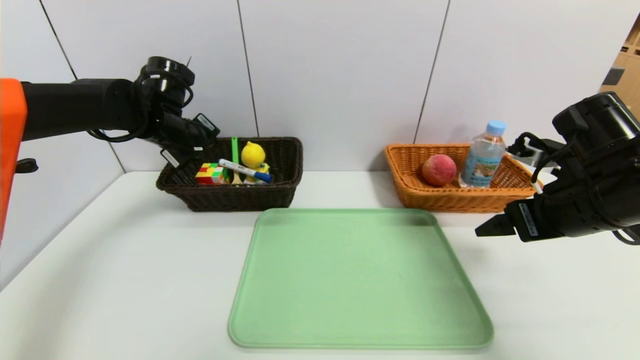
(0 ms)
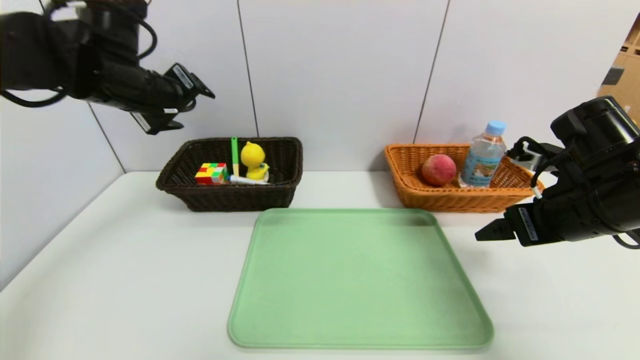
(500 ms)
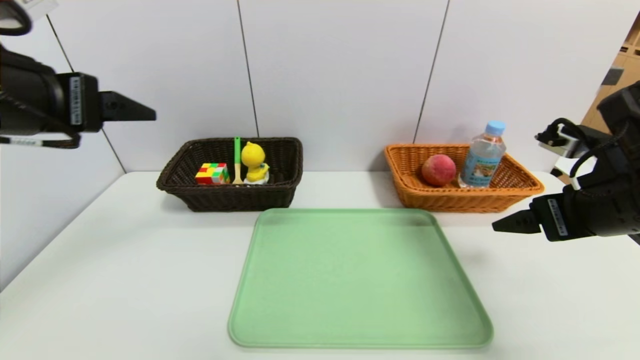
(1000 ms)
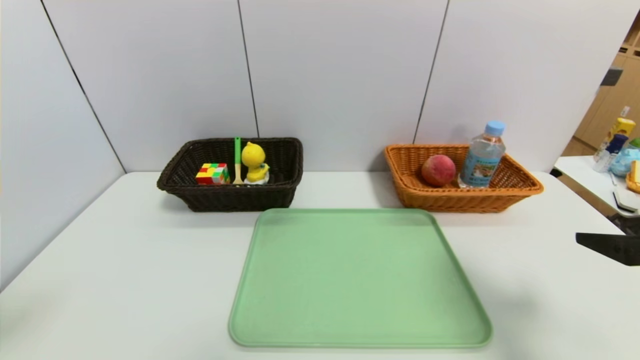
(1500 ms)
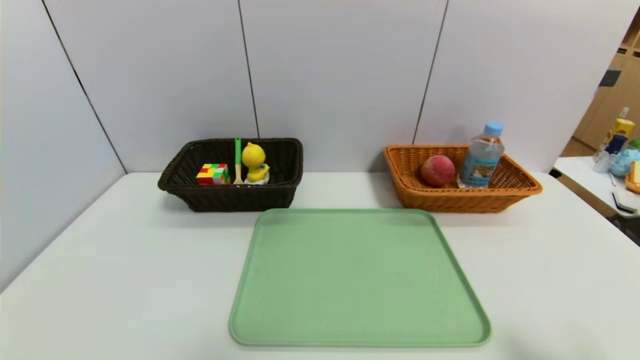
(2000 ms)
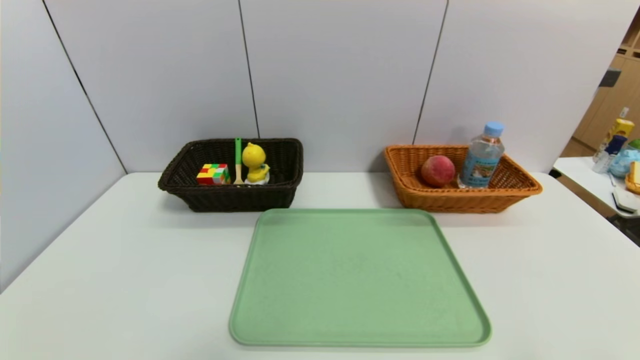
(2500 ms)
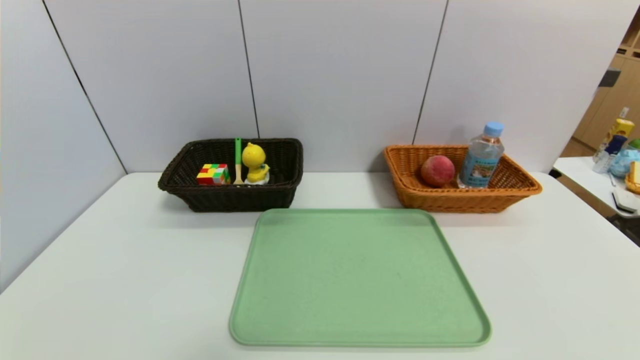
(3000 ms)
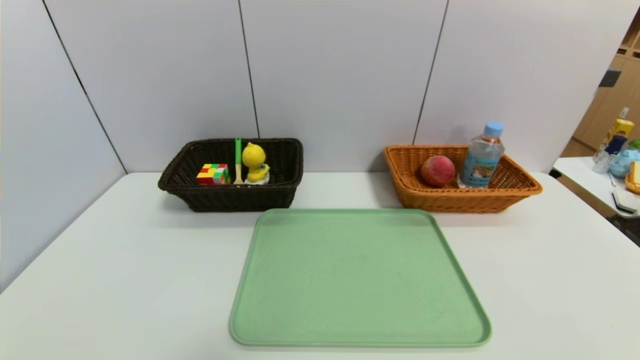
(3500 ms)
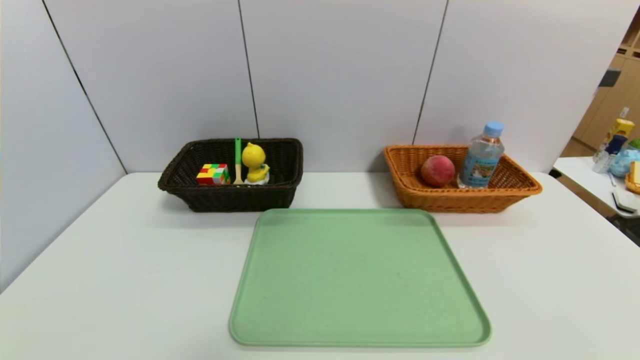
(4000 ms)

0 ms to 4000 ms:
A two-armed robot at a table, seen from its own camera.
Task of the whole recording: place the food in the right basket with the right gripper, and place the non food items in the left basket with the left gripper.
0 ms to 2000 ms: The right gripper goes about 25 cm backward; the left gripper is displaced backward by about 50 cm, and opens up.

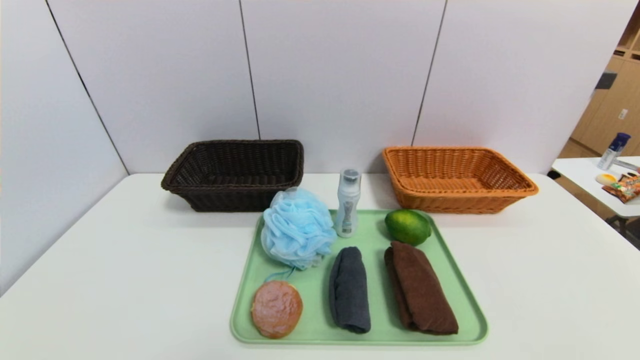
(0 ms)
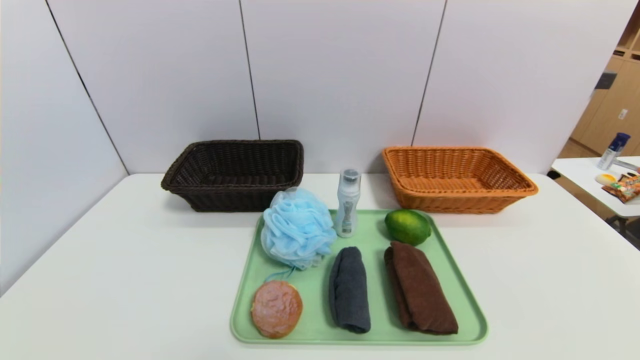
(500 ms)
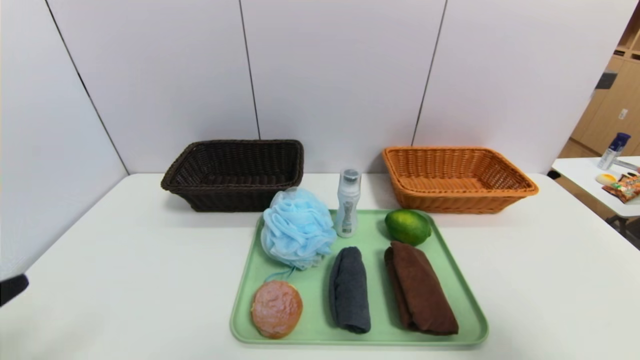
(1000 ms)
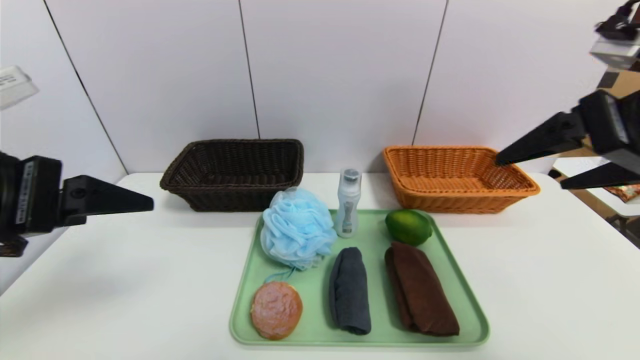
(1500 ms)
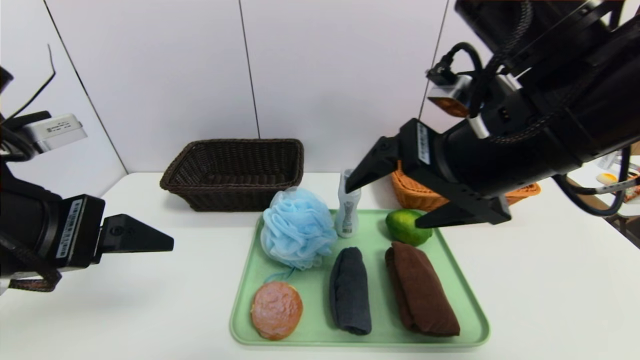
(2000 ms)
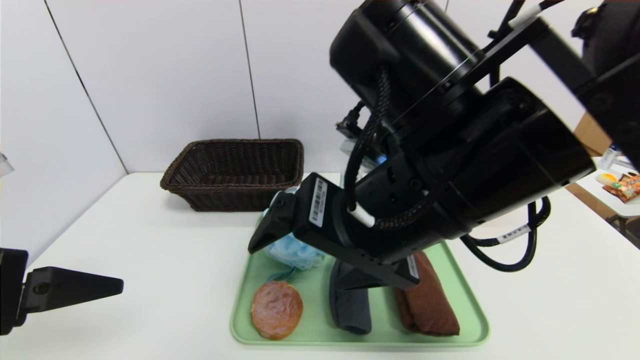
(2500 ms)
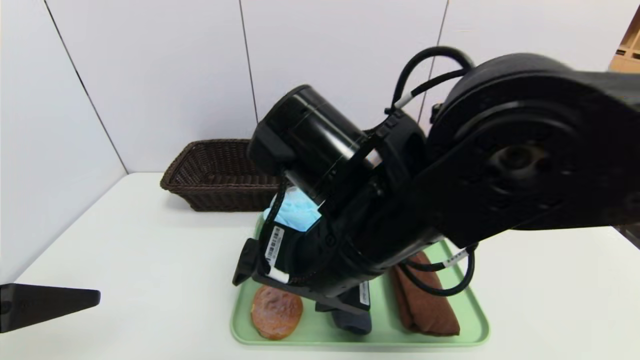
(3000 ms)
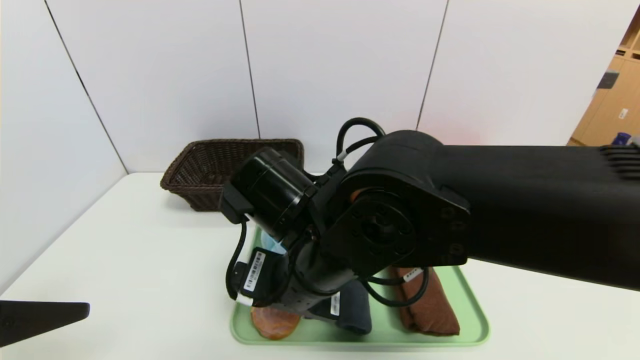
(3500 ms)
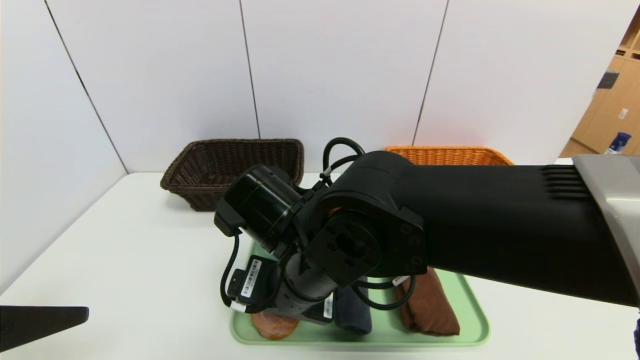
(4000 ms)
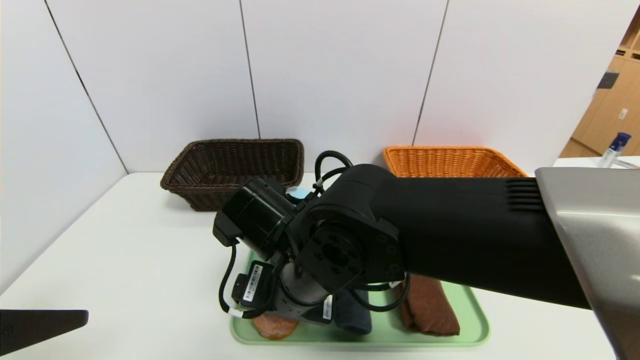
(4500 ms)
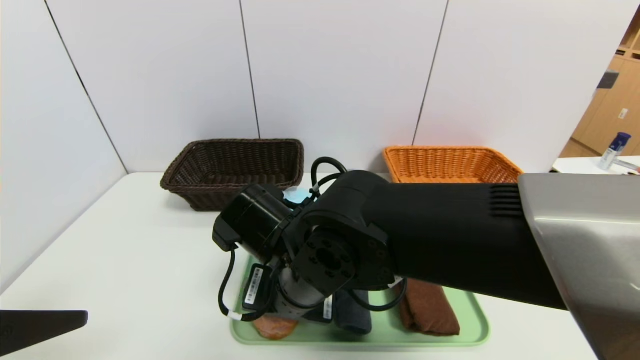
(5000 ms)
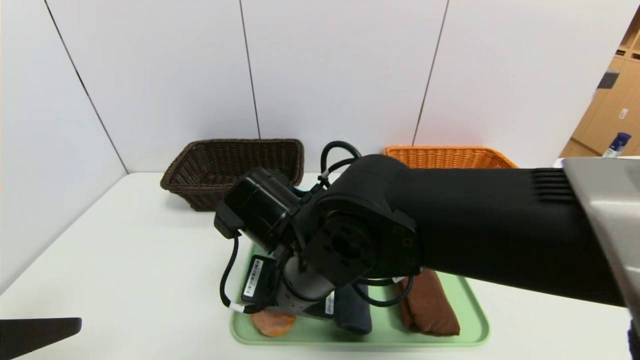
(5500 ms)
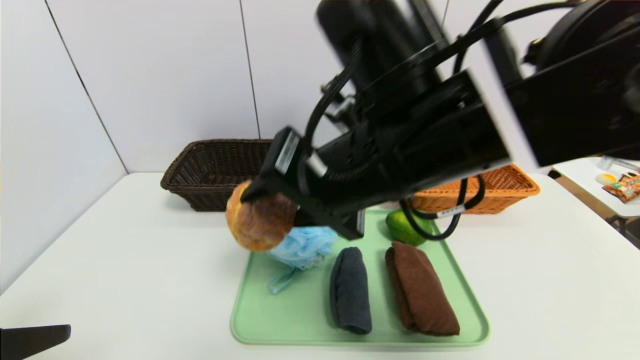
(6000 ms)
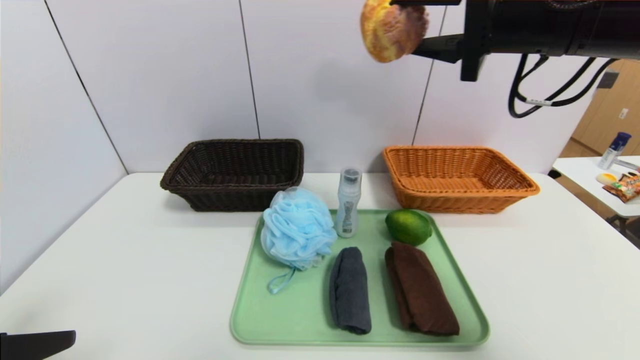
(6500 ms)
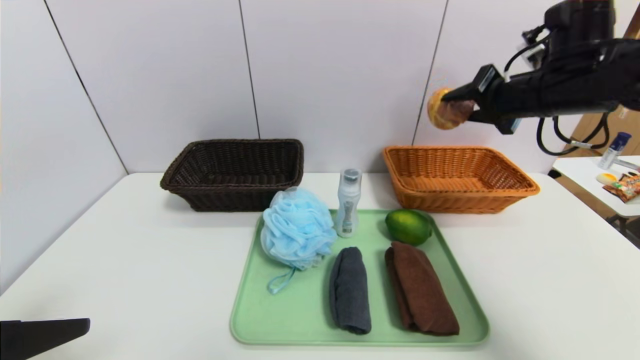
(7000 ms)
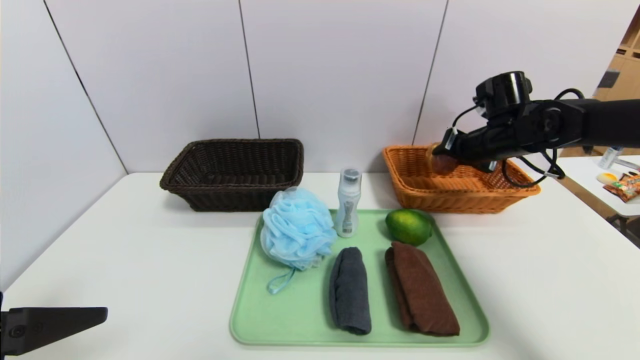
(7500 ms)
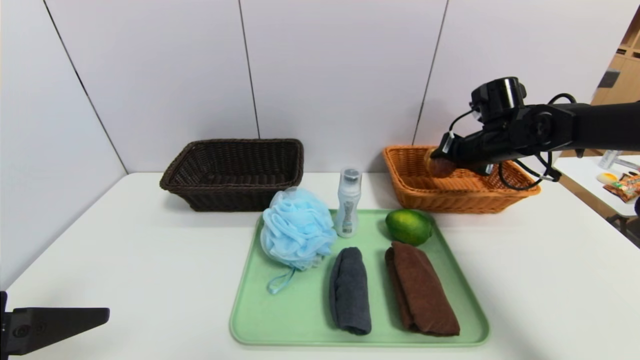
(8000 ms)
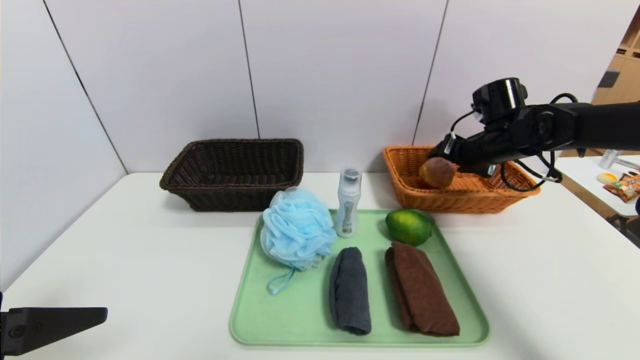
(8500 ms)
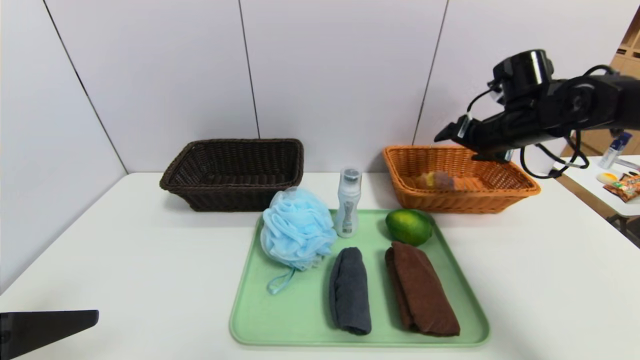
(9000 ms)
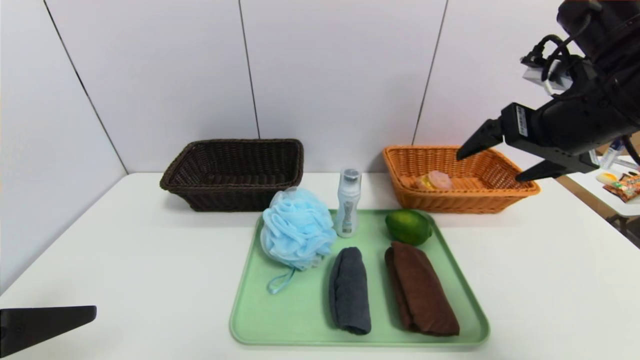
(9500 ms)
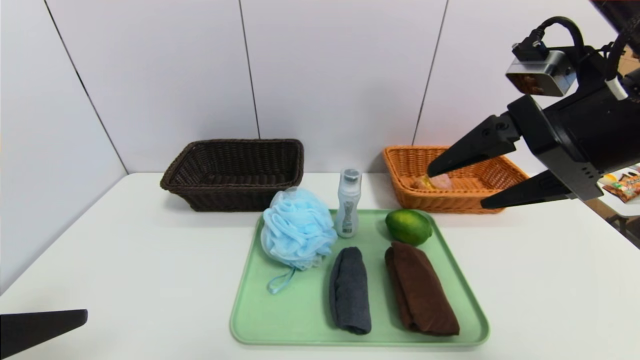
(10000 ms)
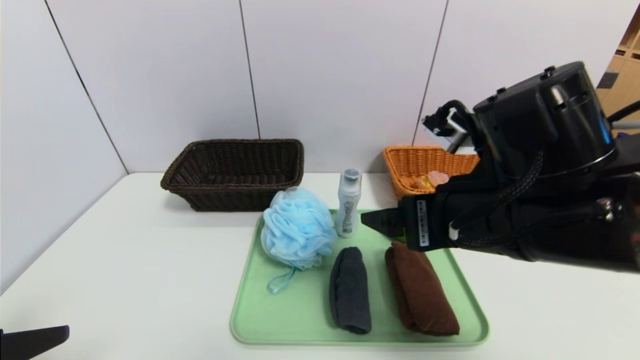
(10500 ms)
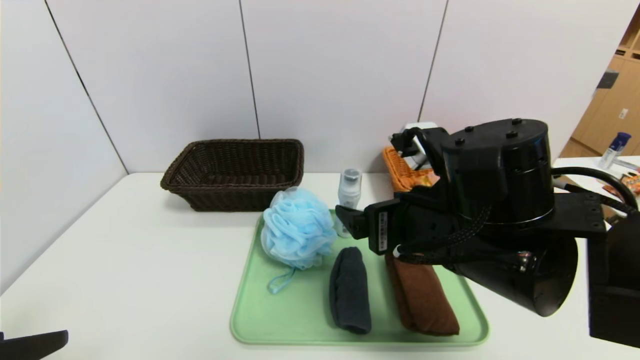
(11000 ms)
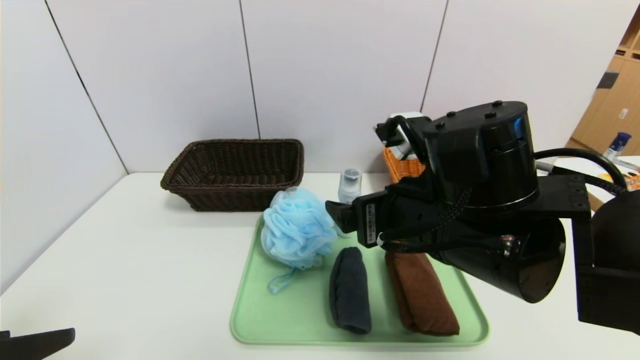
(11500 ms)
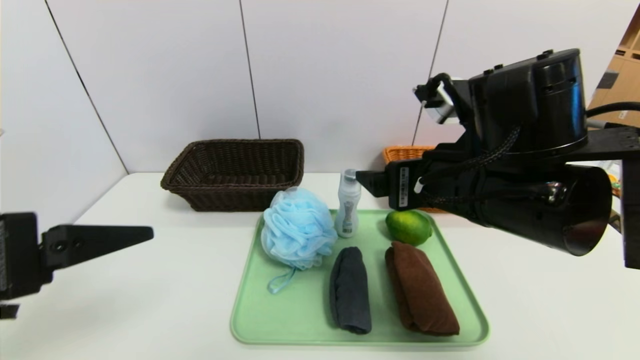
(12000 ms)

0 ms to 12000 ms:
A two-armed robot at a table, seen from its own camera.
Task of the whole recording: place the food in the right basket with the right gripper, and place the non food items in the left basket with the left gripper.
Step, 0 ms to 8500 ms: Grasp the egg yolk pastry and put it in the right basket.
0 ms to 2000 ms: The right gripper heads upward, forward and to the left, covering approximately 40 cm. Meanwhile the left gripper goes approximately 25 cm upward and forward.
2000 ms to 4000 ms: The left gripper moves backward, roughly 5 cm. Meanwhile the right gripper moves to the left and downward, roughly 20 cm.
4000 ms to 6000 ms: The right gripper travels upward and to the right by approximately 15 cm, and closes its fingers.
6000 ms to 8000 ms: The right gripper shifts some 35 cm to the right, forward and downward.
8000 ms to 10000 ms: The right gripper shifts roughly 25 cm backward and upward, and opens its fingers.
10000 ms to 12000 ms: The right gripper moves to the left and downward, roughly 10 cm. Meanwhile the left gripper shifts about 5 cm forward.

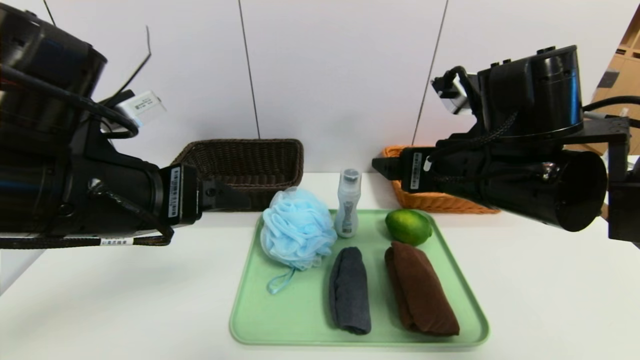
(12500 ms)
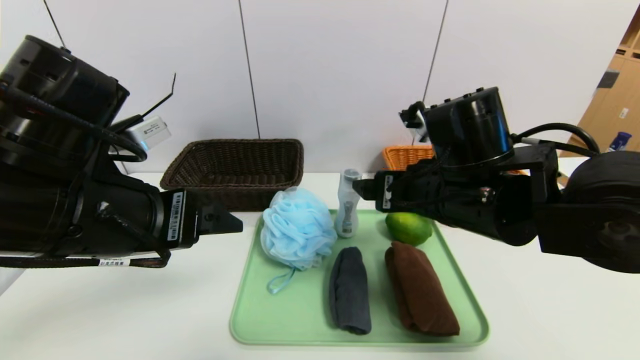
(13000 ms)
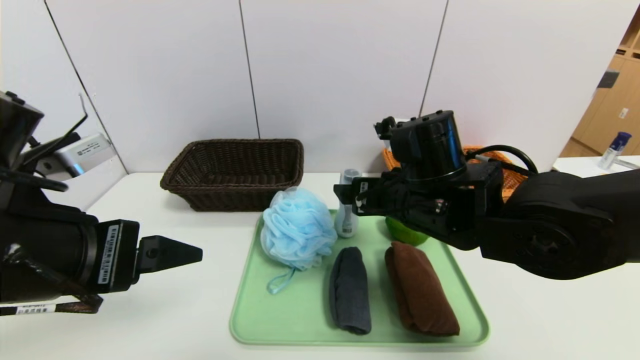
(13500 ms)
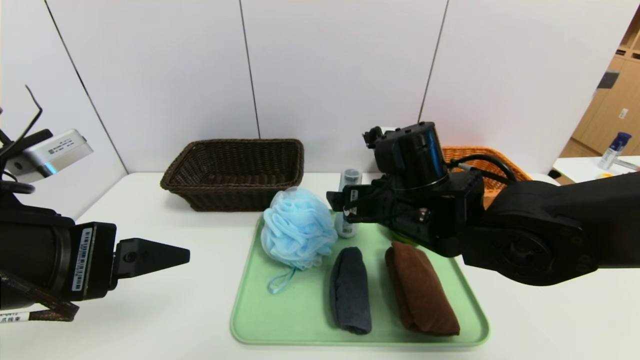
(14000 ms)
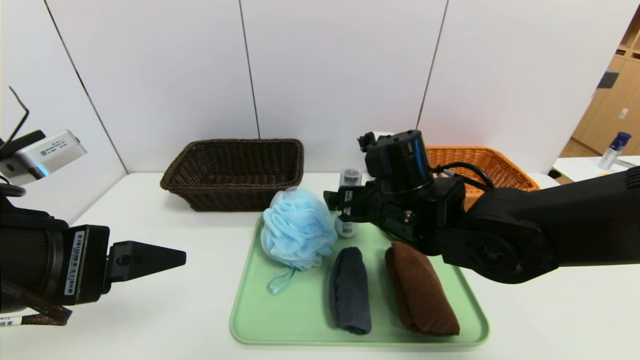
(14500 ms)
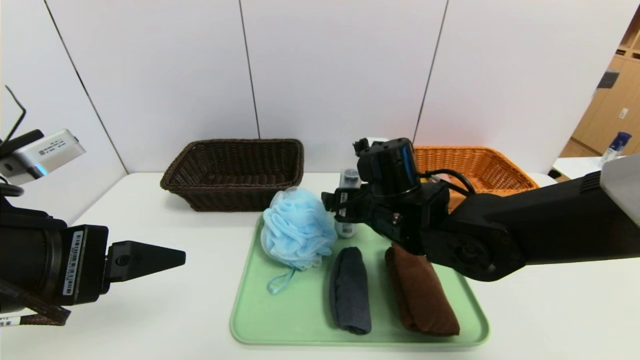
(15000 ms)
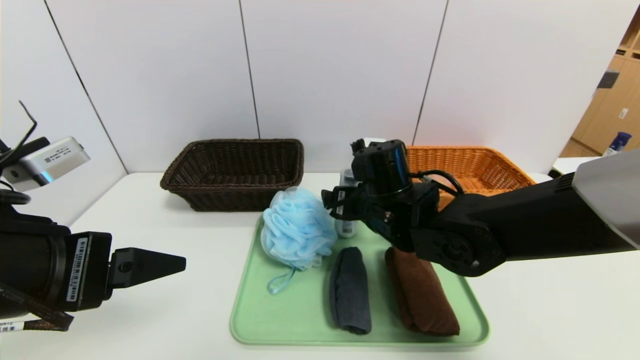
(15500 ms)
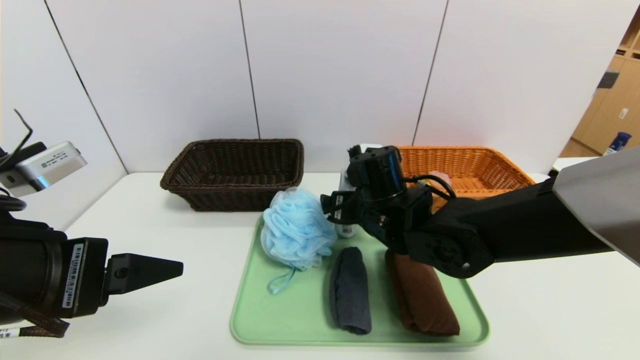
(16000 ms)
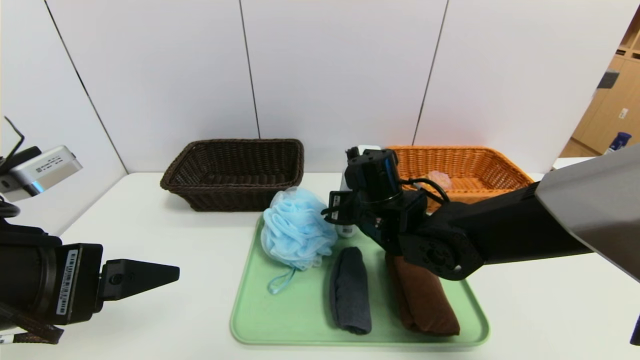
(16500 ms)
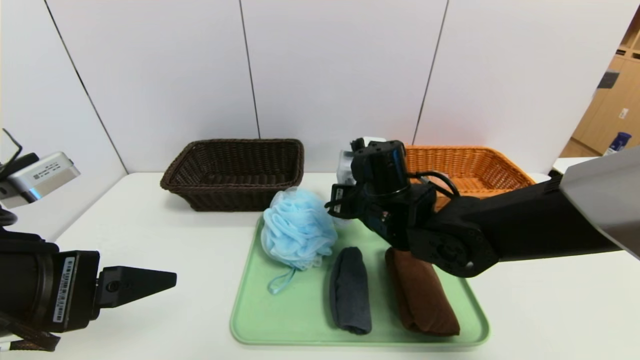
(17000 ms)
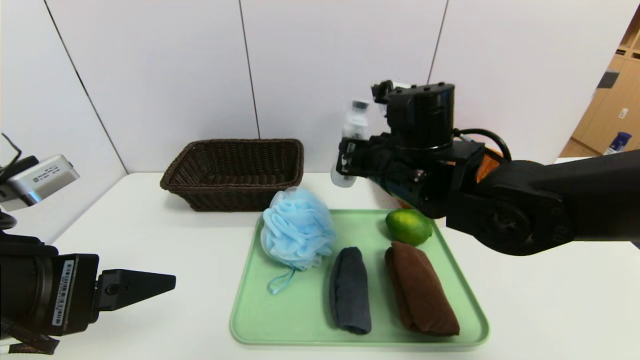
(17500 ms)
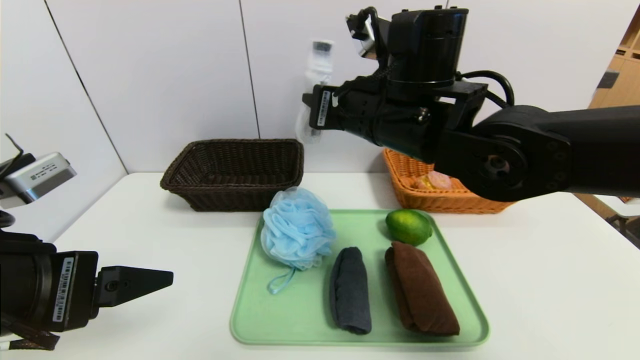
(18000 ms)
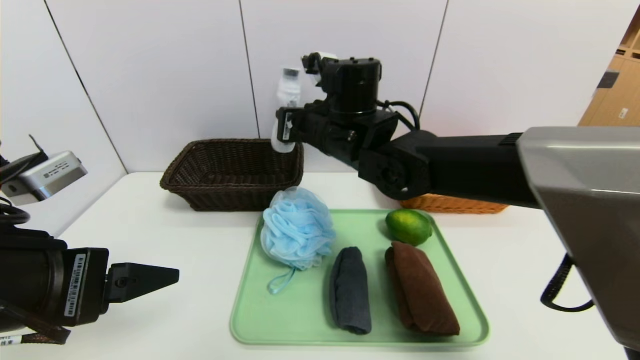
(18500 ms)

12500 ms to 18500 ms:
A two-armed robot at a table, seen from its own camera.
Task of the whole recording: place the food in the right basket with the right gripper, and place the non food items in the left basket with the left gripper.
12500 ms to 14500 ms: The left gripper moves backward, some 5 cm. Meanwhile the right gripper moves downward and to the left, roughly 10 cm.
14500 ms to 16500 ms: The right gripper shifts by roughly 5 cm, and closes.
16500 ms to 18500 ms: The right gripper travels upward and to the left by some 10 cm.
